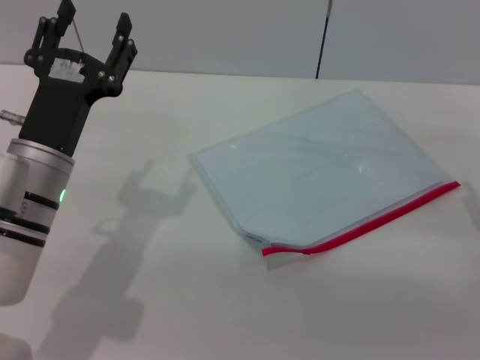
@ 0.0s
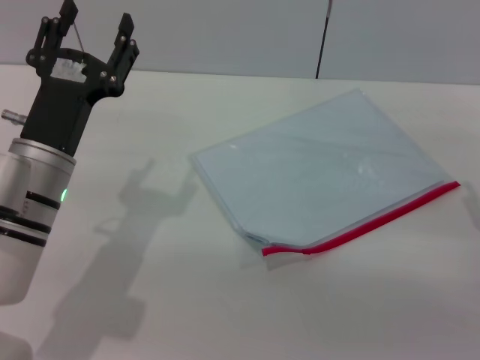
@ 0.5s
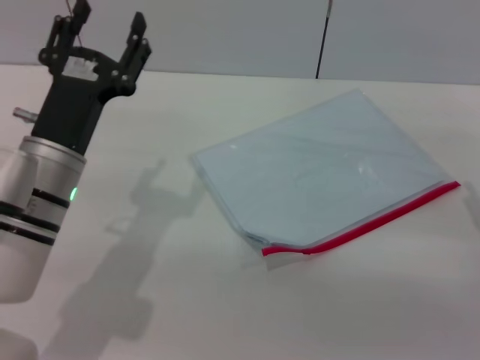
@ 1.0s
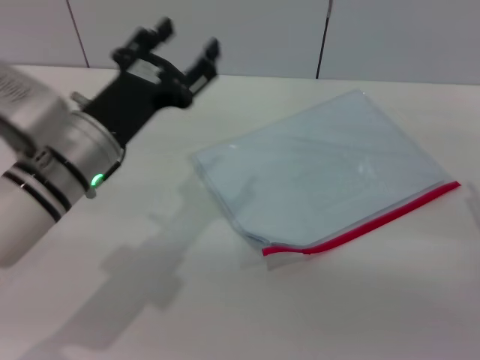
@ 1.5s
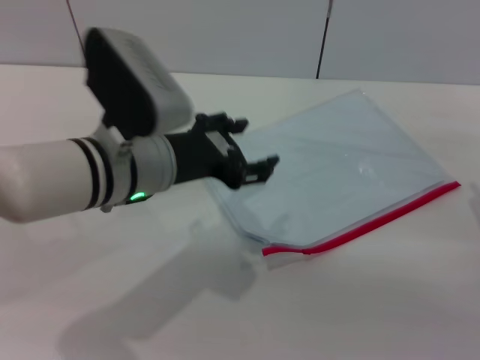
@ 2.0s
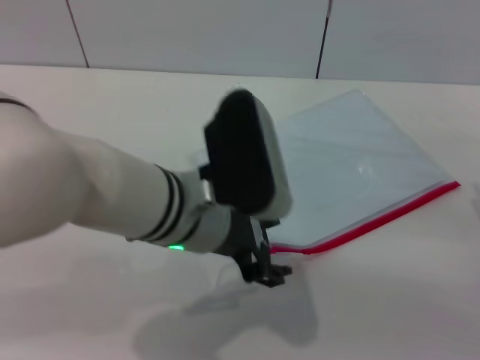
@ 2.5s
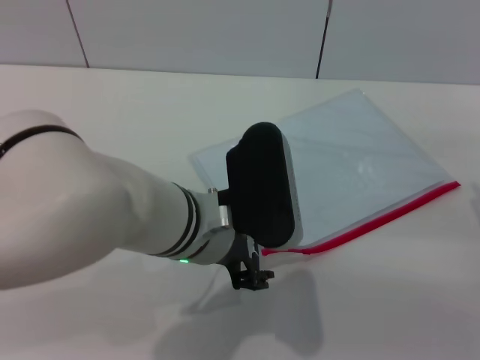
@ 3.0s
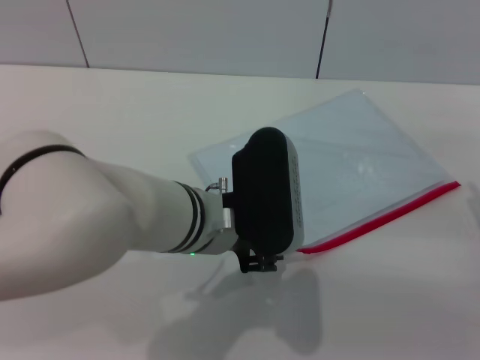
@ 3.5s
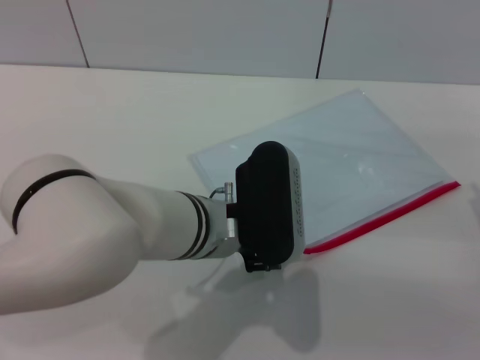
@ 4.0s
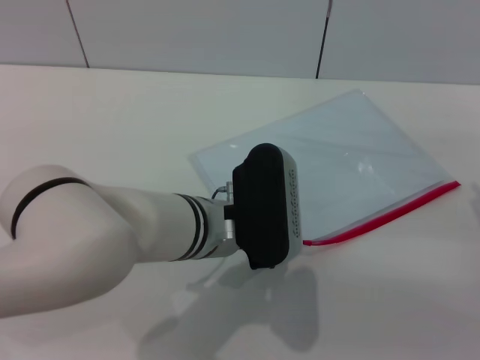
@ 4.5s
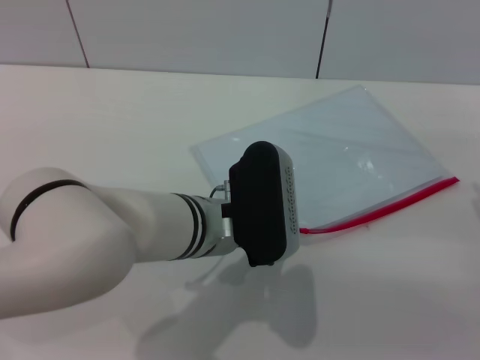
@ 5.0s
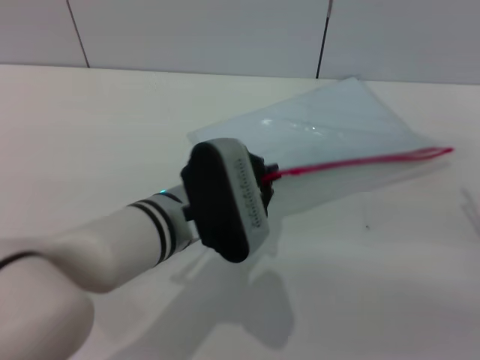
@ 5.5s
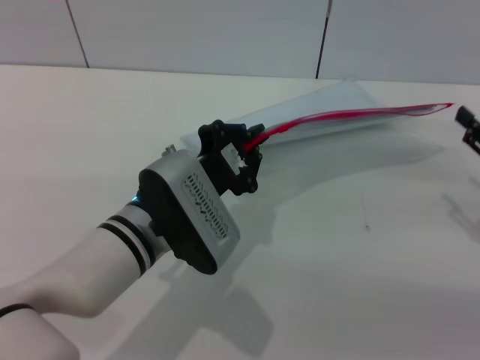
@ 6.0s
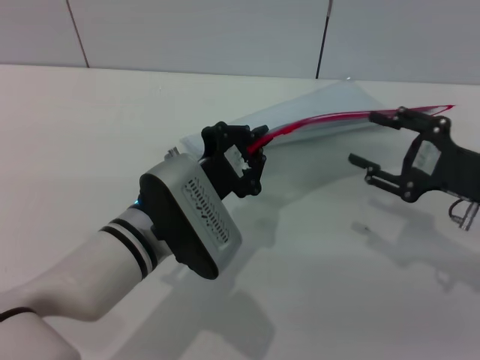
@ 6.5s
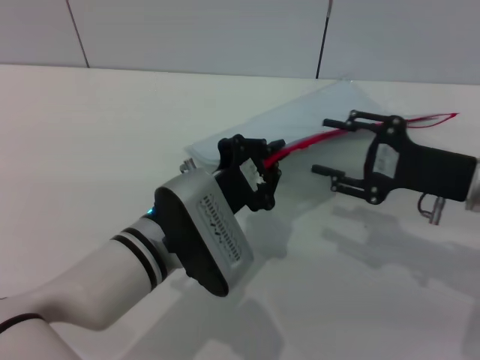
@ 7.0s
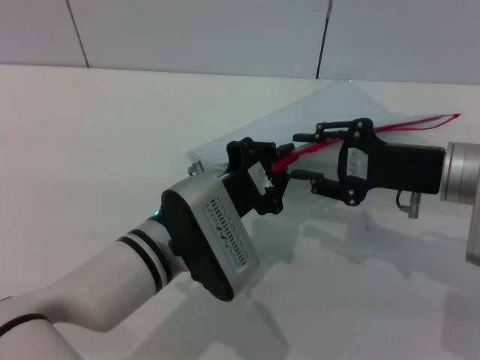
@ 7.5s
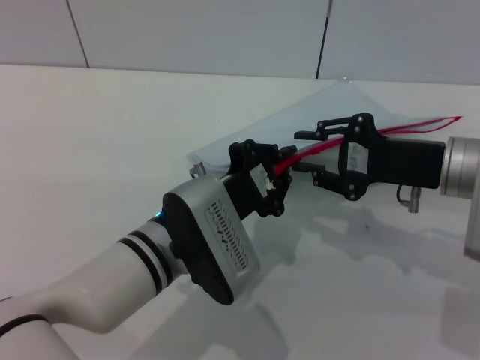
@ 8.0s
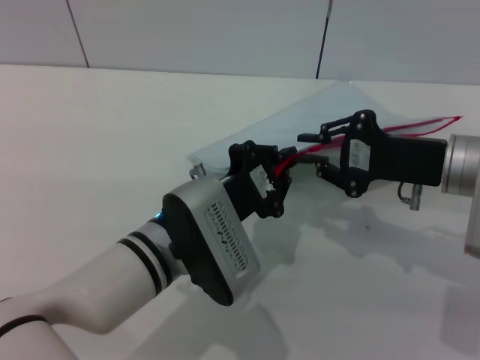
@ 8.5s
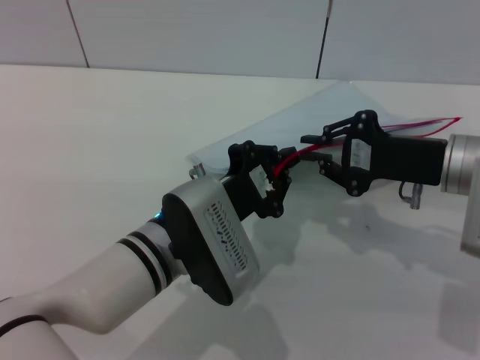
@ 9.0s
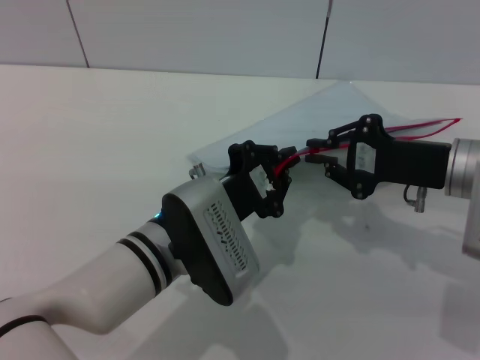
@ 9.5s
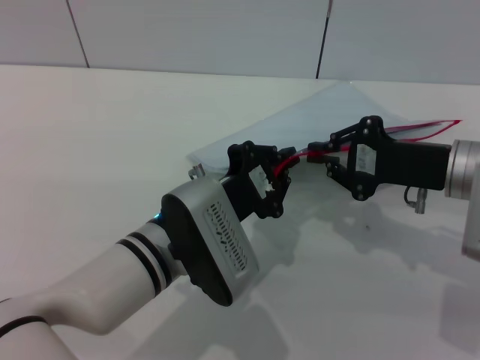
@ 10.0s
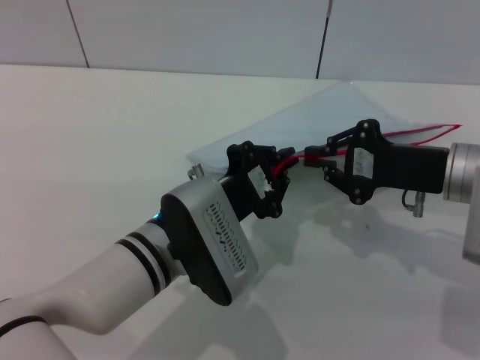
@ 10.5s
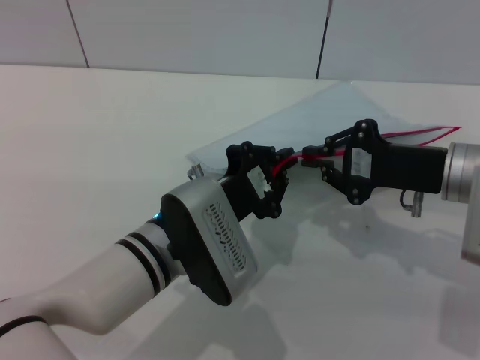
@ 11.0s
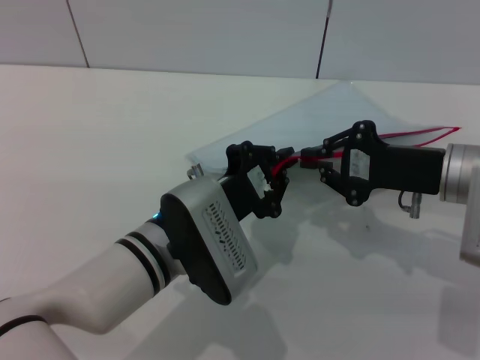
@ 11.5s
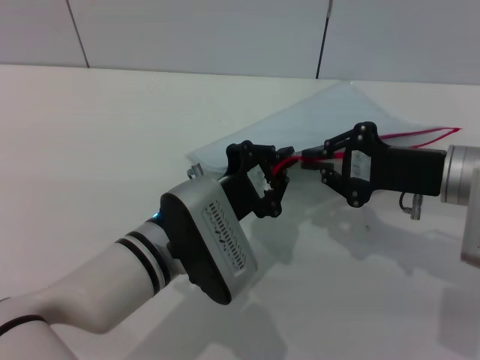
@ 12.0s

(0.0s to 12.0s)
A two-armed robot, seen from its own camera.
Step, 0.0s - 5.5s: Pick up the transparent plastic bag with the left gripper.
0.0s - 2.0s: The left gripper travels to the right and upward by roughly 10 cm.
2.0s - 4.0s: The left gripper shifts about 10 cm to the right.
4.0s - 6.0s: The left gripper moves approximately 5 cm, and closes up.
6.0s - 8.0s: The right gripper travels to the left and forward by some 15 cm.
8.0s - 10.0s: The right gripper closes its fingers.
10.0s - 12.0s: Both grippers stay put.

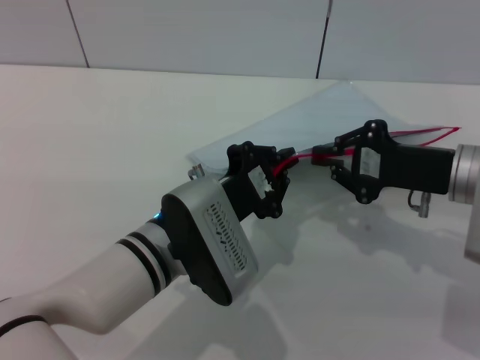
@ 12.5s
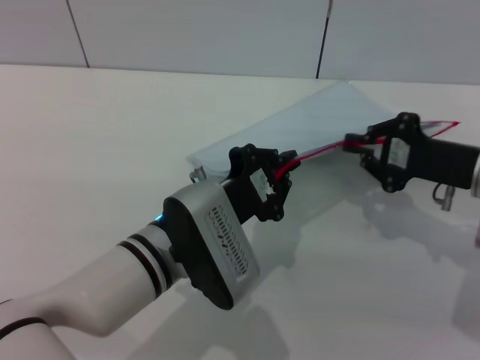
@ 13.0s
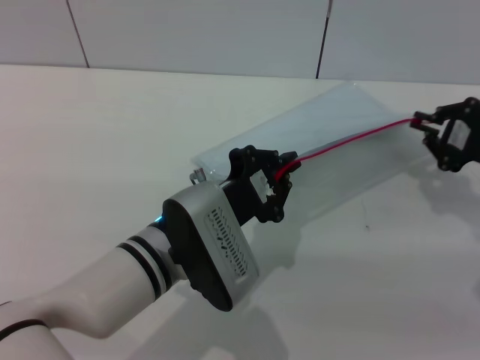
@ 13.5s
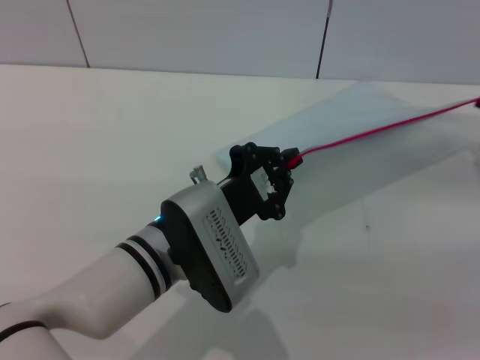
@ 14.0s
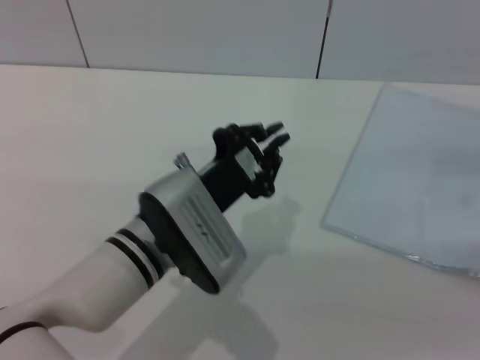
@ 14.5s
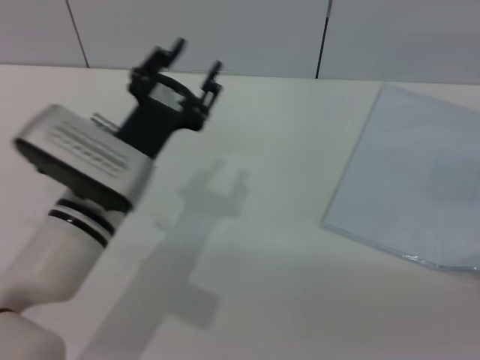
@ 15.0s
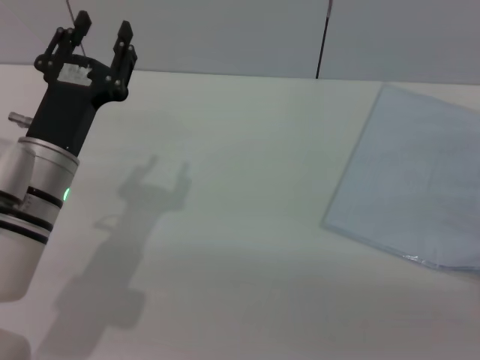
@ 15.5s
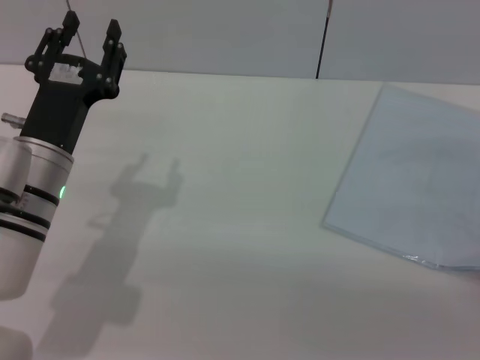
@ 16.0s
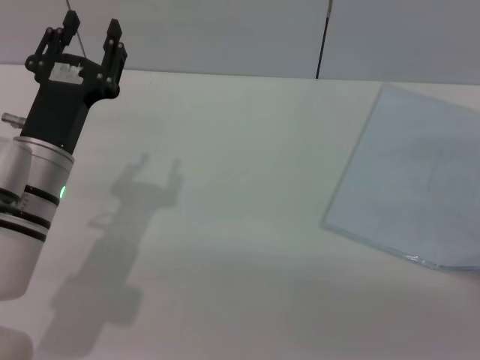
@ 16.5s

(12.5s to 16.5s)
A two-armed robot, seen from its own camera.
Step, 12.5s - 14.5s: Pulling up the zipper on the transparent plastic bag with the right gripper to close it.
Step, 15.0s - 15.5s: Place the transparent plastic bag.
12.5s - 14.5s: The right gripper goes roughly 15 cm to the right.
14.5s - 16.5s: The left gripper is displaced to the left by roughly 10 cm, and opens up; the right gripper is displaced backward and to the left by some 10 cm, and opens up.
